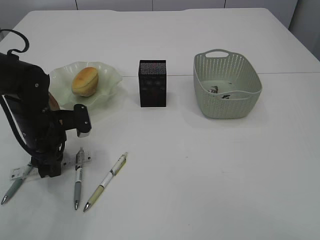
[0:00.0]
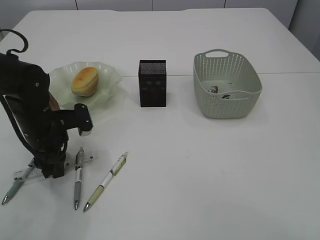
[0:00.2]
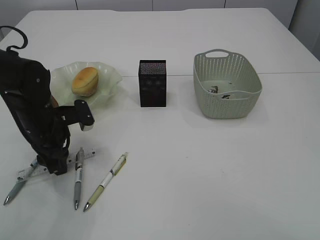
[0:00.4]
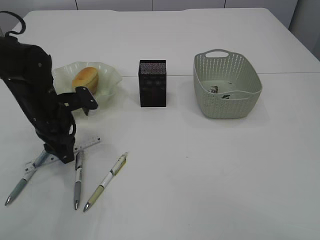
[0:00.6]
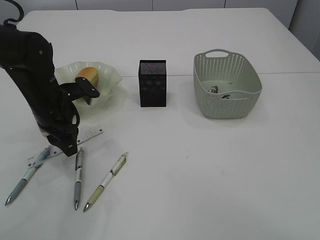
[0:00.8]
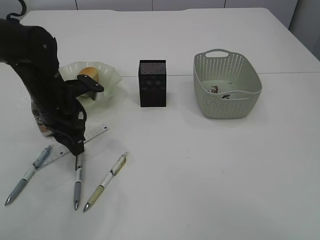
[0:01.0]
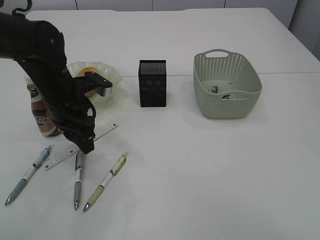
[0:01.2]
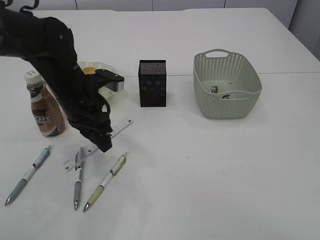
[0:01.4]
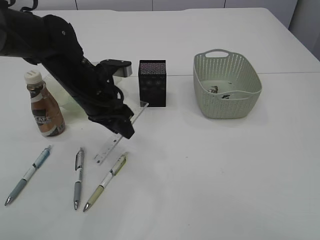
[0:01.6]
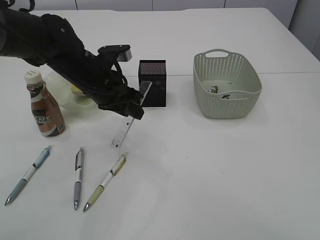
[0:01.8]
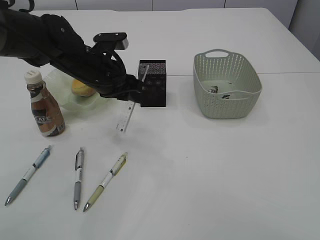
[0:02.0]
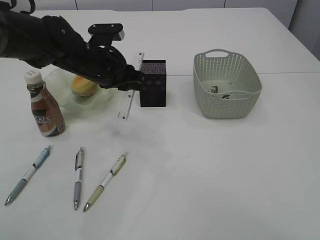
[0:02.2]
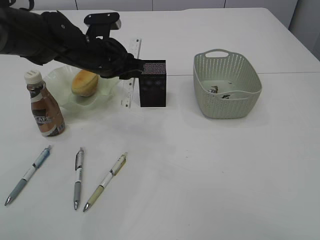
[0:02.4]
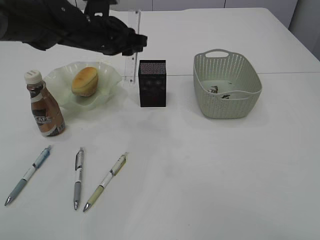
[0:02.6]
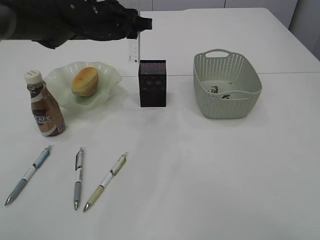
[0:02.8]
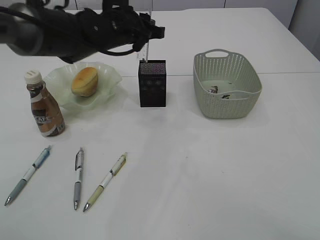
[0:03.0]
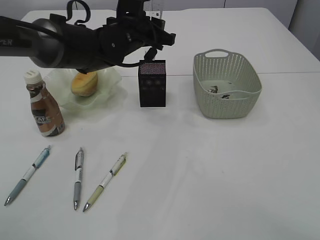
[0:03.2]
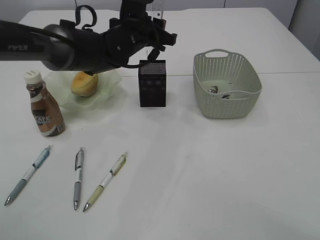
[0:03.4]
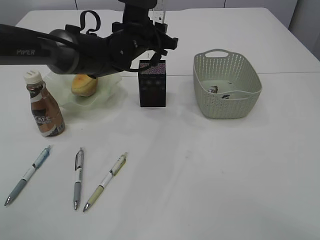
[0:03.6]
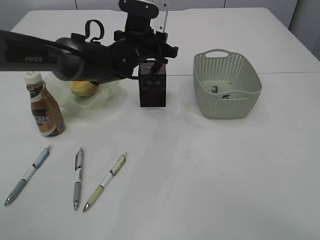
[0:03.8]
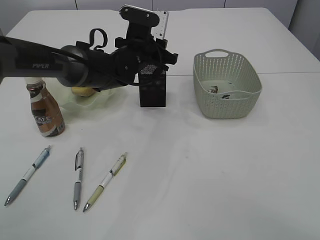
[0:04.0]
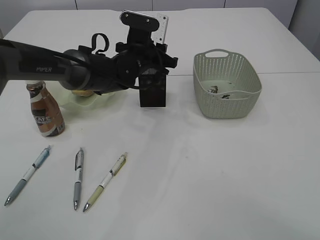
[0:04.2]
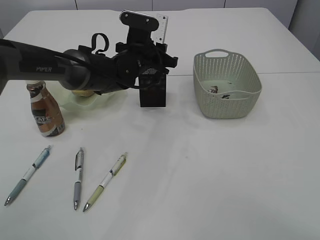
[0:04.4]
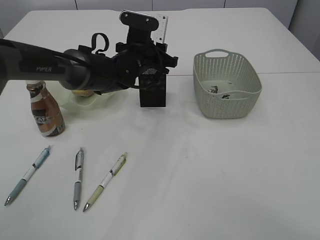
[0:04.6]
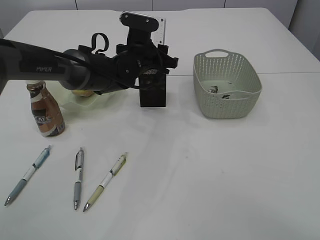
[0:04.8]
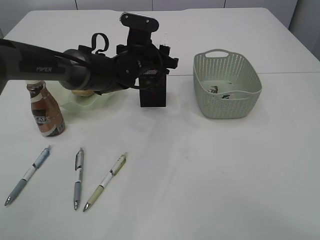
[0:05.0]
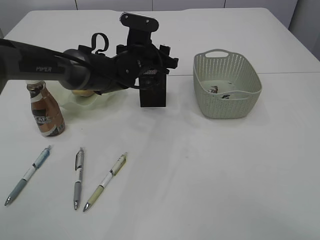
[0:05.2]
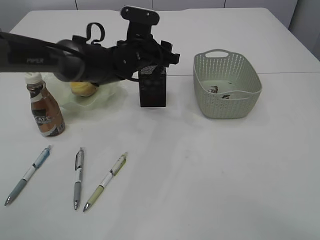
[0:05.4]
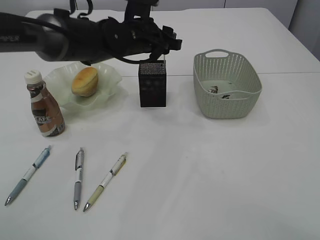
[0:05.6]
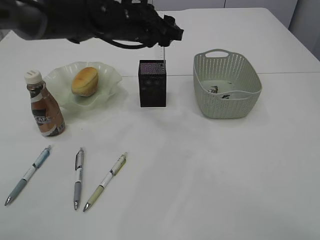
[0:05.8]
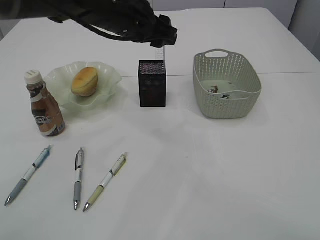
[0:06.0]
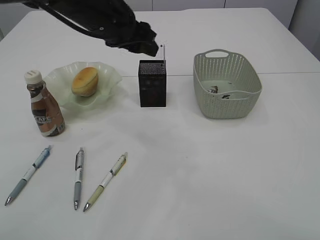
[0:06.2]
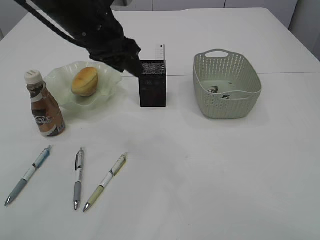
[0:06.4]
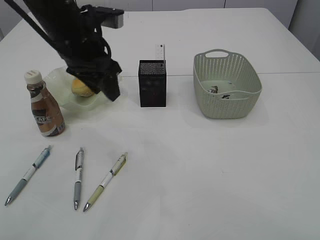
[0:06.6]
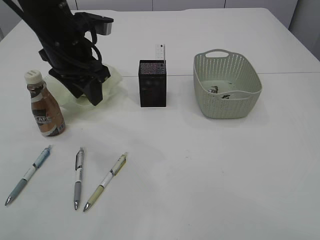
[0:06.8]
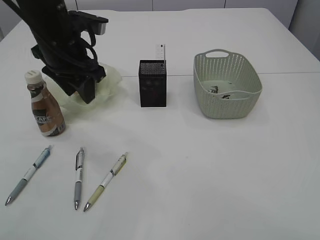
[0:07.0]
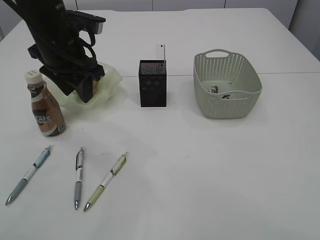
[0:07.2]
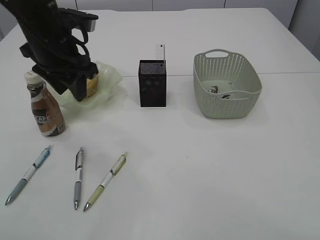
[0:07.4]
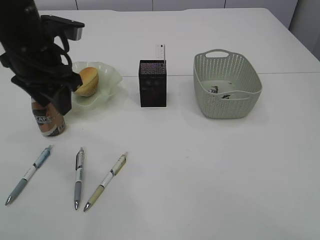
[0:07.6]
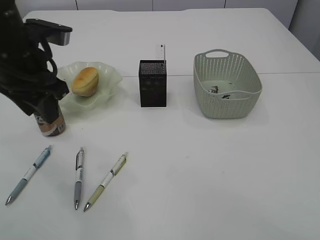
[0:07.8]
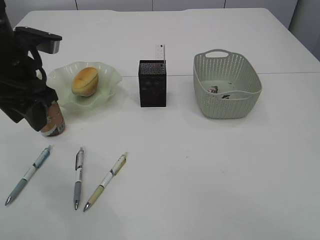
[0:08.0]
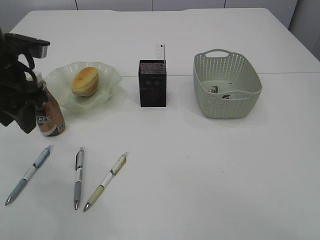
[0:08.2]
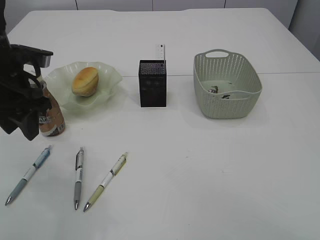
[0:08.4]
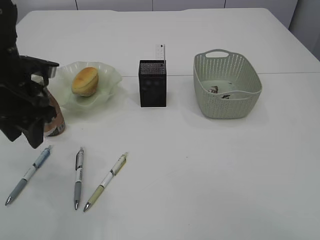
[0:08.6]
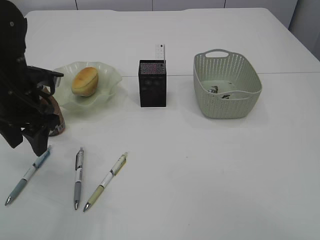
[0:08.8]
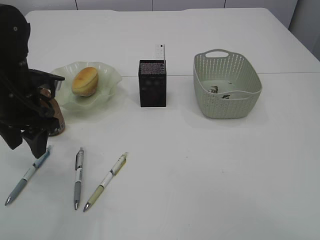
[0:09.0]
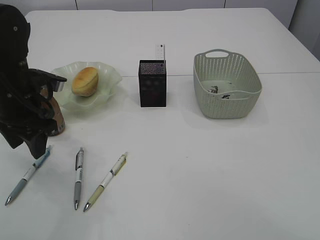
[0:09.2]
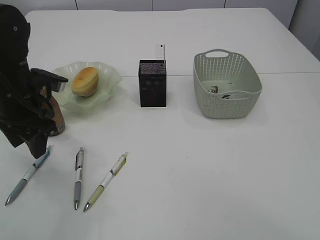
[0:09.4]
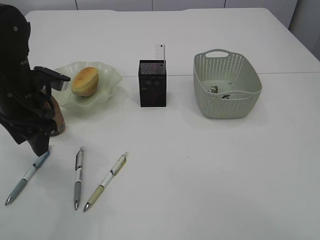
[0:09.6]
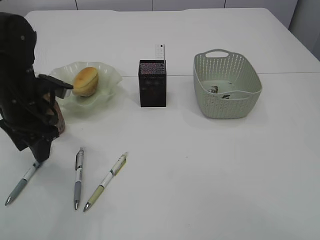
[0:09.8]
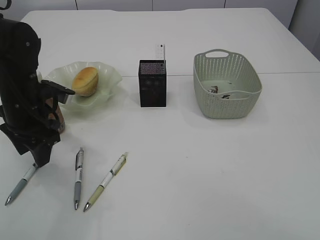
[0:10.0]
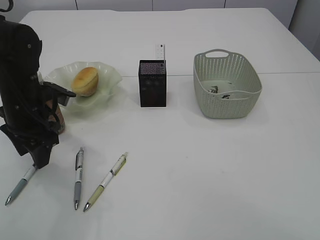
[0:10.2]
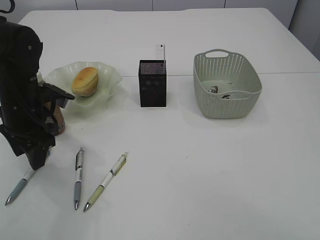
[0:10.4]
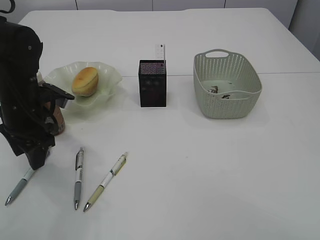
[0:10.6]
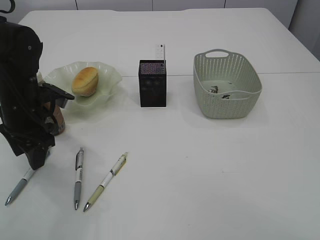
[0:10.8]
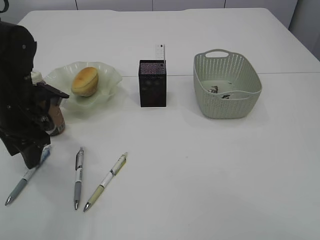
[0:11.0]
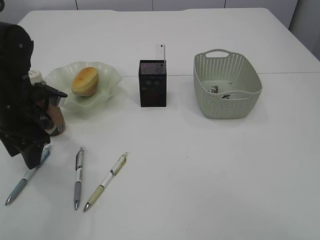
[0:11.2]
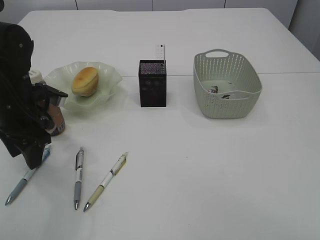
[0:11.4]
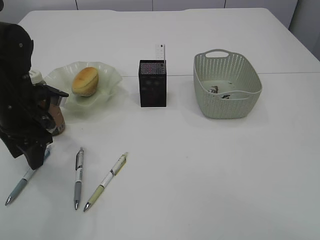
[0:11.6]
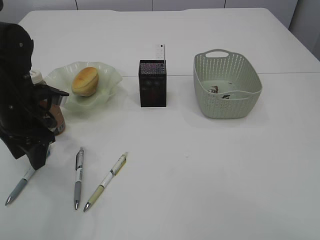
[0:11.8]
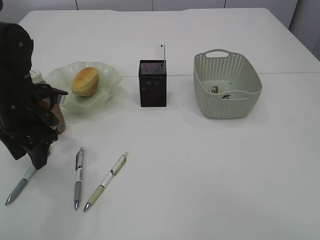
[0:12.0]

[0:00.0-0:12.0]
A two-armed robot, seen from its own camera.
Step, 0:01.6 to 0:06.2: Place the ruler into the pen holder.
0:00.0 to 0:01.6: The left gripper is displaced to the right and upward by about 10 cm.
0:01.6 to 0:03.0: The left gripper shifts about 10 cm forward and upward.
0:03.0 to 0:04.4: The left gripper moves downward, about 10 cm.
0:04.4 to 0:06.0: The left gripper is displaced upward and backward by some 10 cm.
0:06.0 to 0:07.6: The left gripper travels to the left and backward by about 15 cm.
0:07.6 to 0:09.0: The left gripper is displaced downward and to the left by about 10 cm.
0:09.0 to 0:12.0: The grippers move only a little.

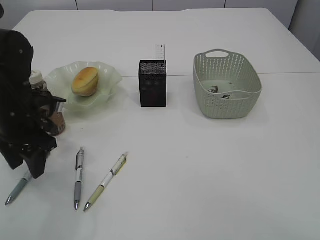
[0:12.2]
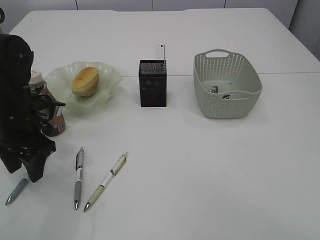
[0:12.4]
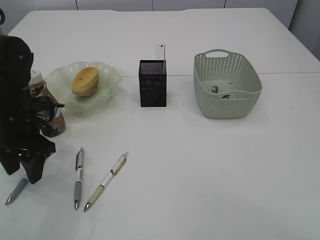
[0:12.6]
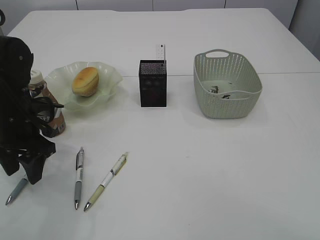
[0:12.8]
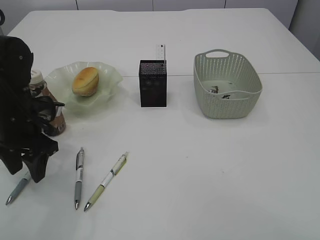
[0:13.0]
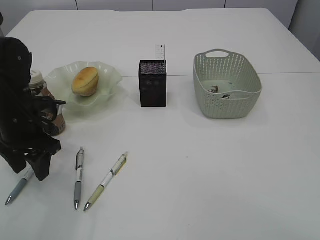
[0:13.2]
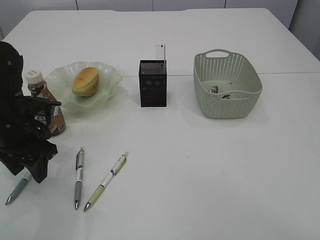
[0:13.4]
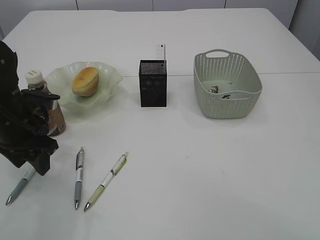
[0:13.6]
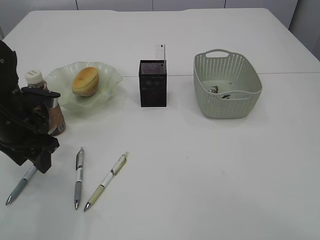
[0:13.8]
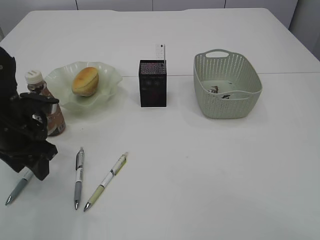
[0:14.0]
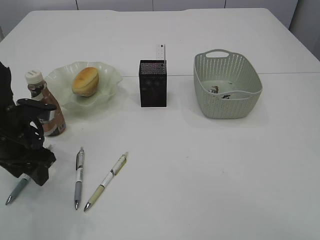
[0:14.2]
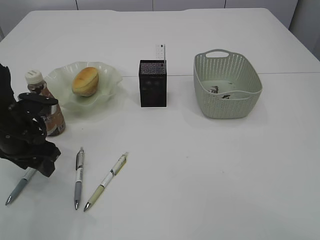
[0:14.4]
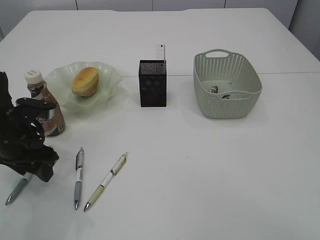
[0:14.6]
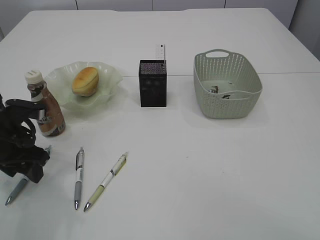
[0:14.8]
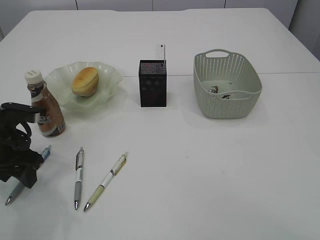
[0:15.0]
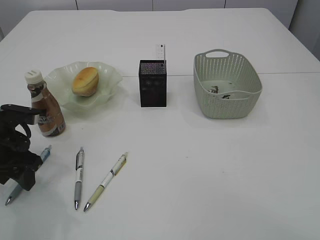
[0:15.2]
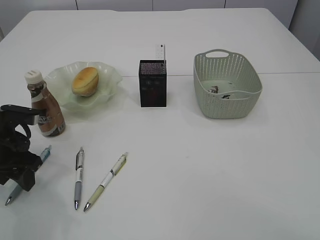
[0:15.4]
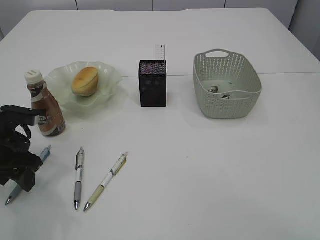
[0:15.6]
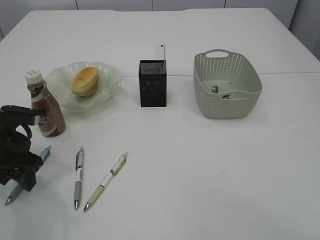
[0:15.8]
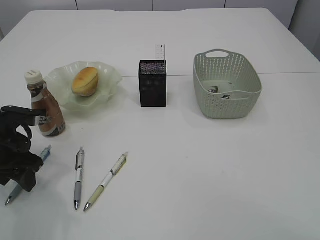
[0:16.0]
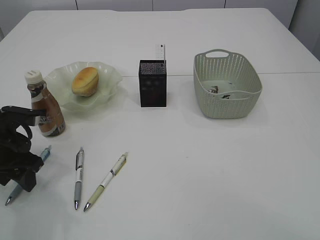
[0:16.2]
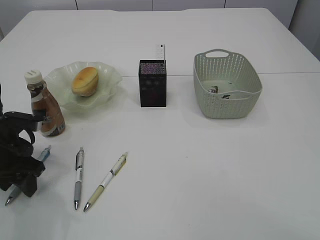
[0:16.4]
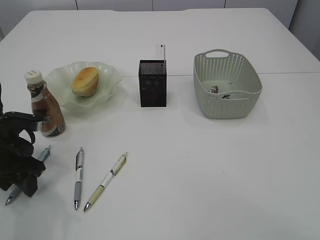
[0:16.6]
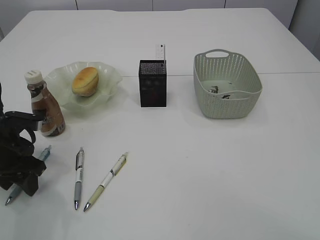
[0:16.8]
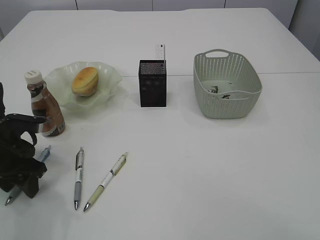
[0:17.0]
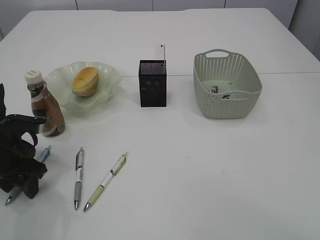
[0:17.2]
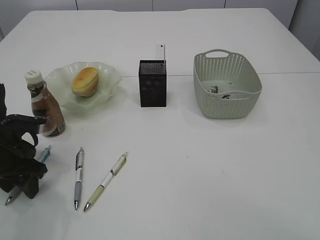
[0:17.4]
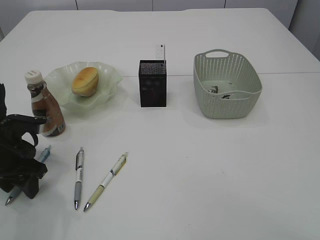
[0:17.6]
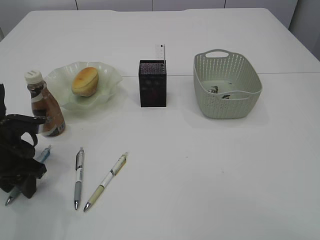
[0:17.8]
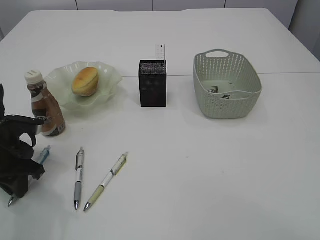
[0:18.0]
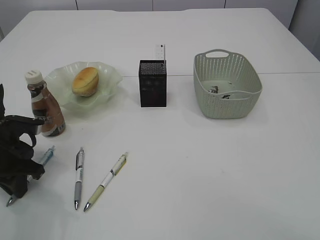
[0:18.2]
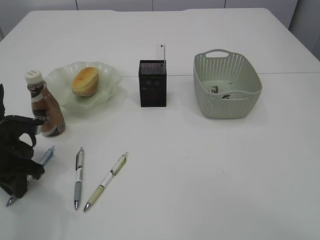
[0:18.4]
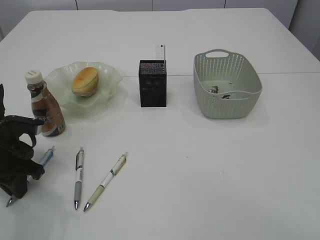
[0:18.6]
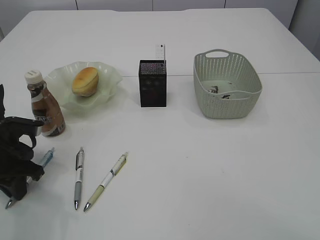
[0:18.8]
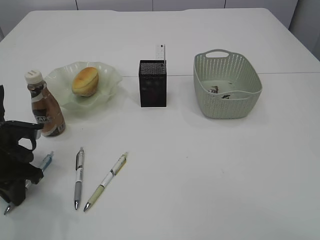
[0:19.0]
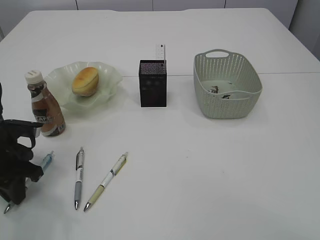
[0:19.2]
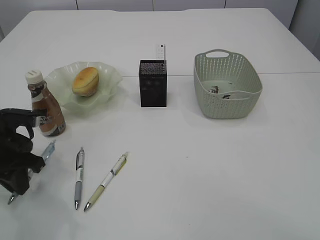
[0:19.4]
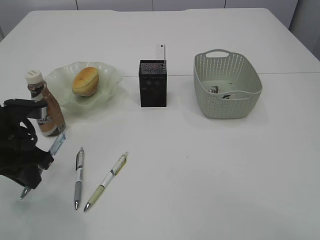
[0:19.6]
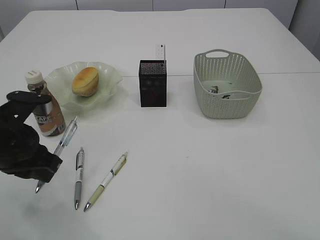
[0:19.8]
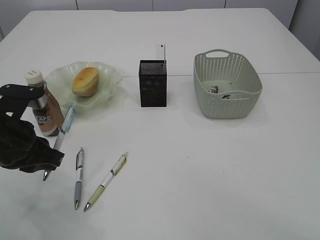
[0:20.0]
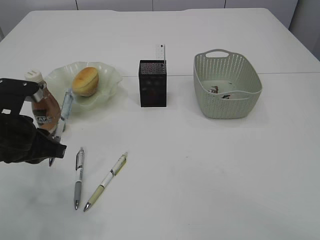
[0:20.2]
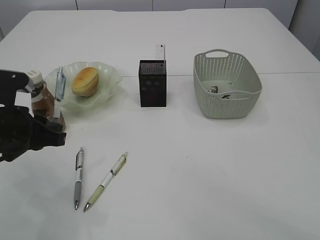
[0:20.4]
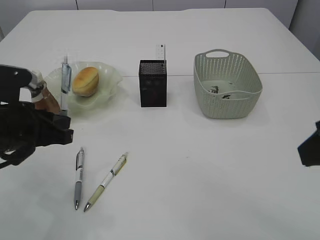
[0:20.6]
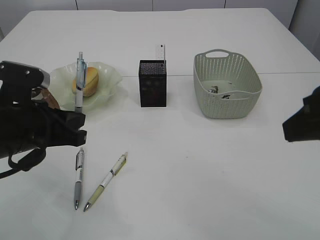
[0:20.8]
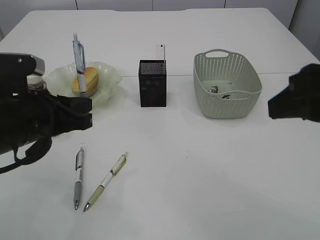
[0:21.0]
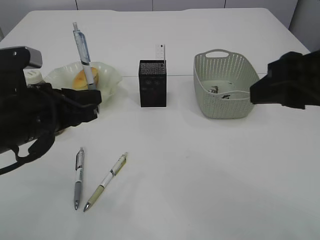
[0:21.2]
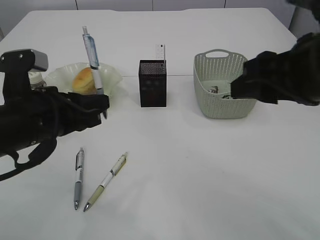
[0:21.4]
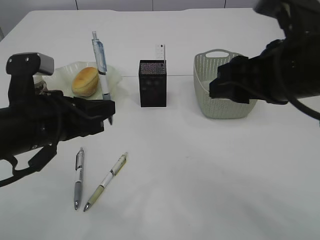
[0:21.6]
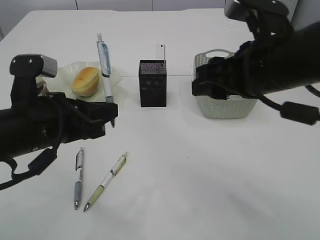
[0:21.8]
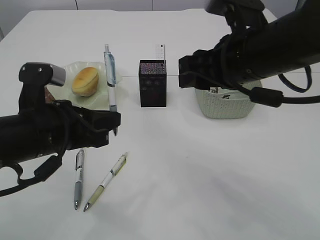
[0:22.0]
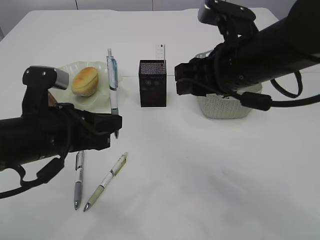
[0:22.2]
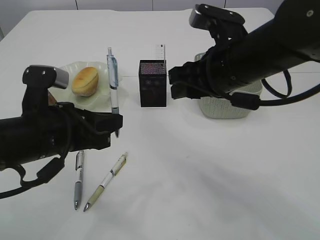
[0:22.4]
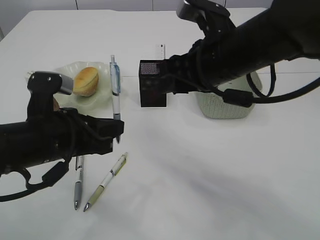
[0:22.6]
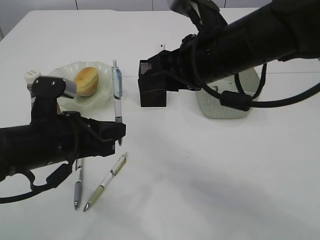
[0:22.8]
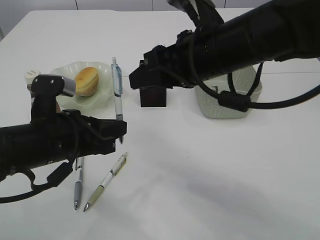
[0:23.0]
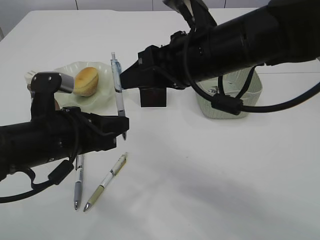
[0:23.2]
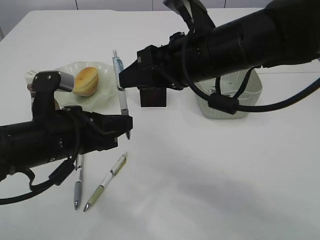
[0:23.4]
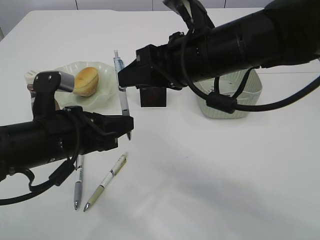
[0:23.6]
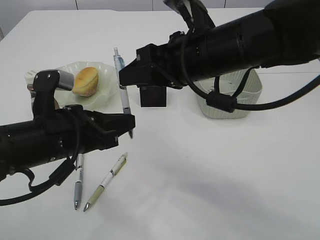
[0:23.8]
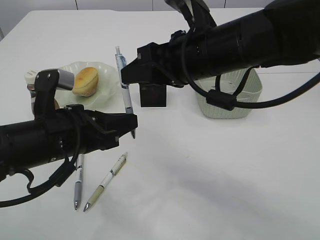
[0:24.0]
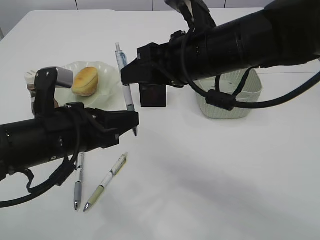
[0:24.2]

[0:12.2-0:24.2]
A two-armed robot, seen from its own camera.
Step, 0:12.2 to 0:19.8: Pick up the pen with left arm.
0:12.2 to 0:13.8: The grippers make only small movements.
0:13.8 to 0:15.2: There are only small adjustments of the grippers.
0:15.2 to 0:16.6: Neither gripper changes place.
0:16.6 to 0:18.2: The left gripper closes up.
0:18.2 to 0:19.8: The left gripper heads upward and to the right, covering about 10 cm.
0:19.8 to 0:21.2: The right gripper goes approximately 5 cm forward, while the left gripper shifts by approximately 5 cm.
0:21.2 to 0:22.6: The right gripper travels forward, to the left and downward by roughly 15 cm.
